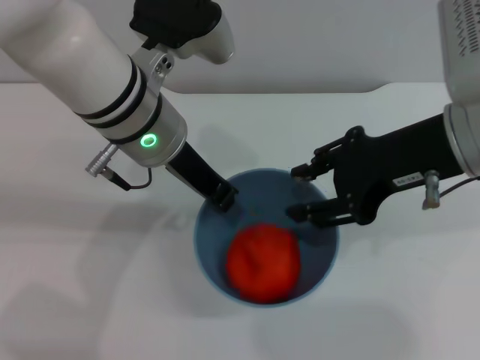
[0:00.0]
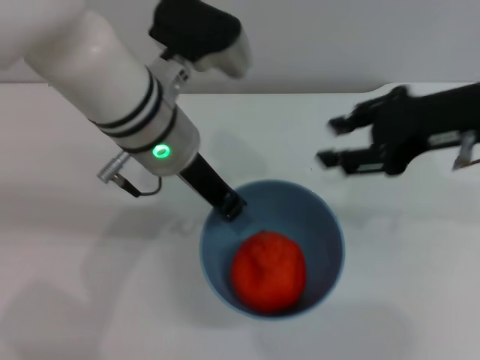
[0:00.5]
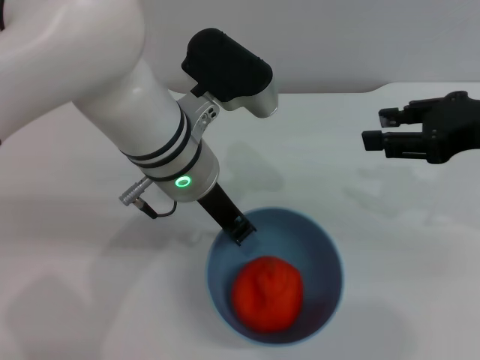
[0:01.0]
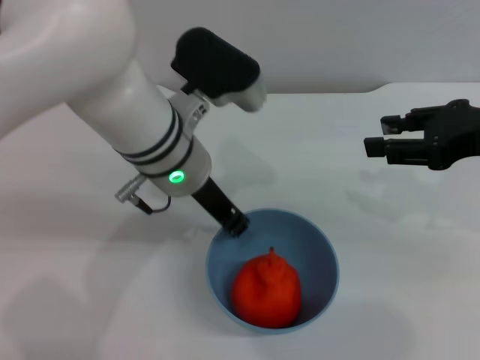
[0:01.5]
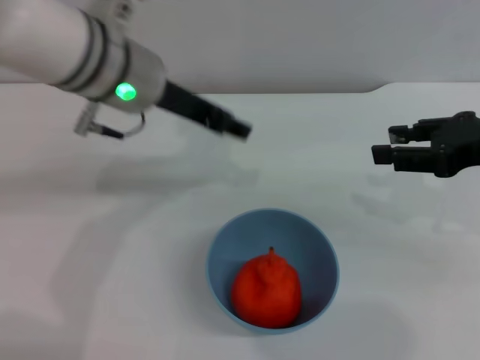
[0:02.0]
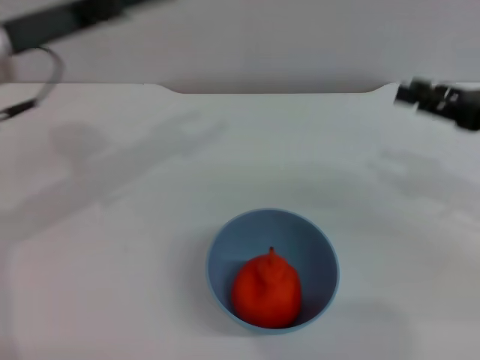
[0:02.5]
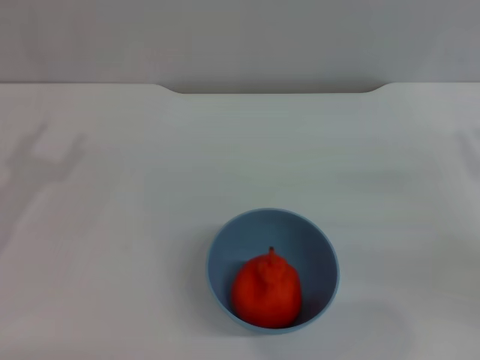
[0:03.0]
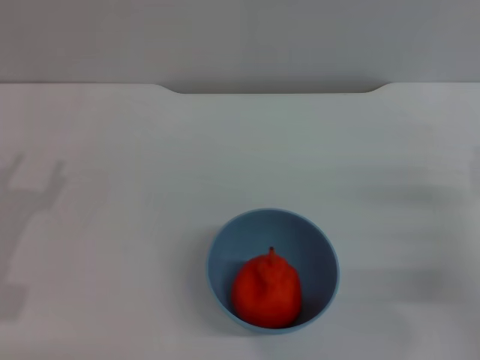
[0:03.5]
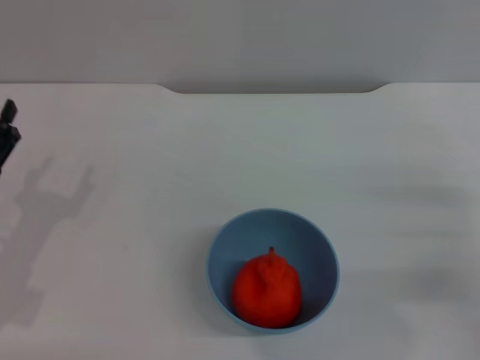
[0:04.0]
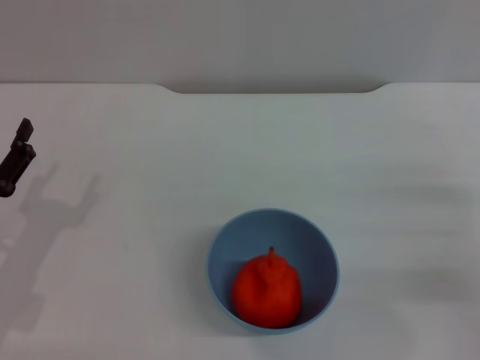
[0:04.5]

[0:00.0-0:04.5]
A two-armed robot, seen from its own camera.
Task of the whole recording: put the orange into the blue bowl and pour it out repeatedly.
Step, 0:00.5 to 0:01.5: Place the bowl on the table.
0:00.0 to 0:02.0: The right gripper moves to the right, approximately 10 cm. The left gripper opens.
0:02.0 to 0:04.5: The left gripper is displaced to the left, downward and backward by about 30 cm. The right gripper is displaced downward by roughly 15 cm.
